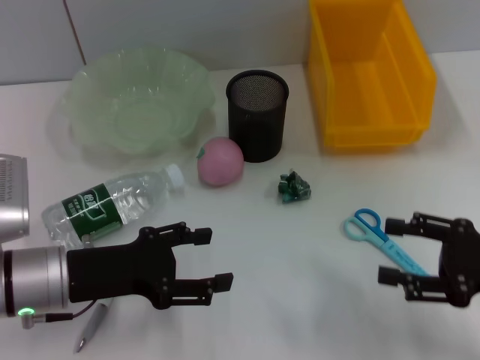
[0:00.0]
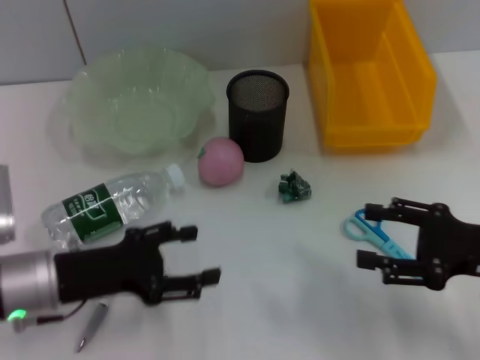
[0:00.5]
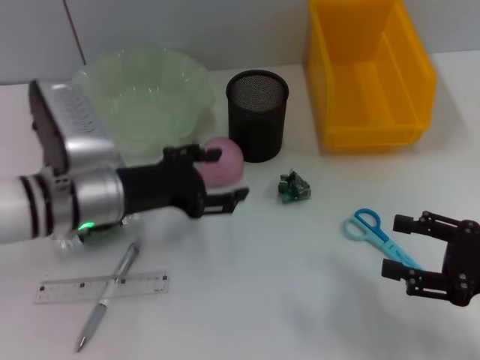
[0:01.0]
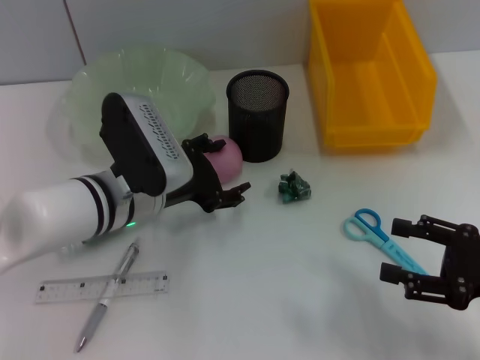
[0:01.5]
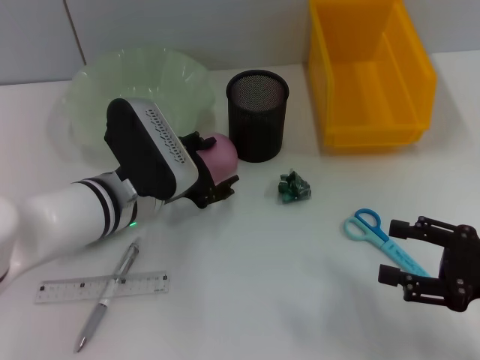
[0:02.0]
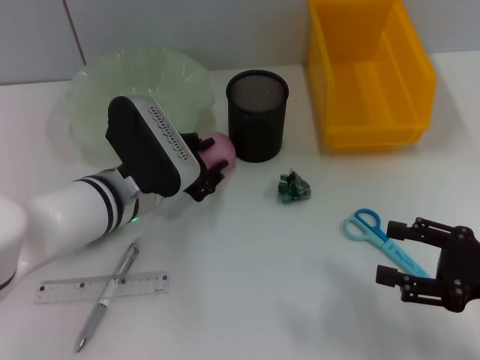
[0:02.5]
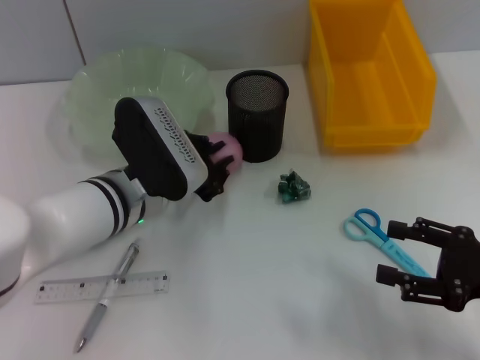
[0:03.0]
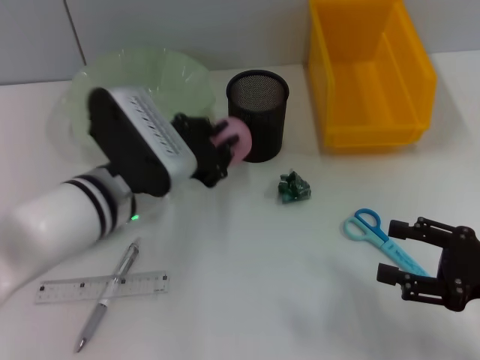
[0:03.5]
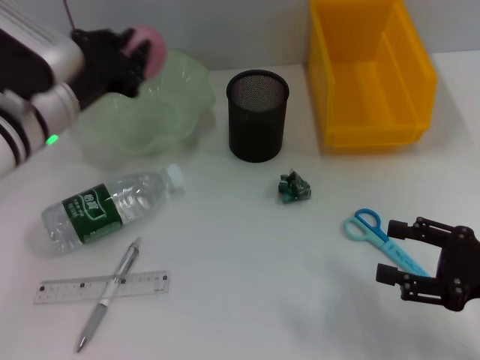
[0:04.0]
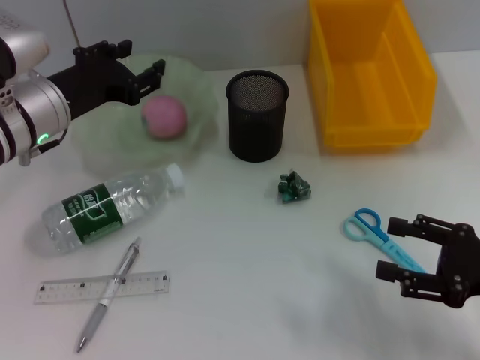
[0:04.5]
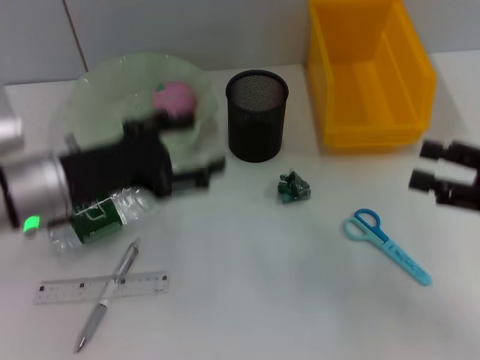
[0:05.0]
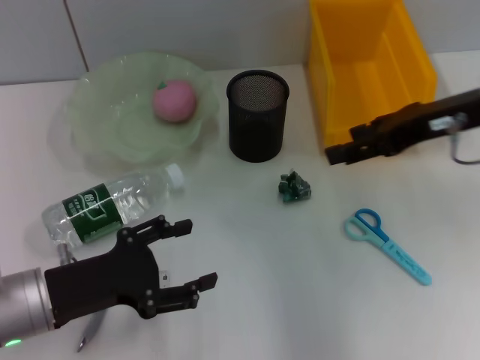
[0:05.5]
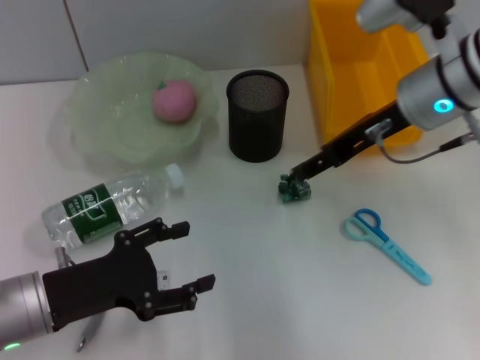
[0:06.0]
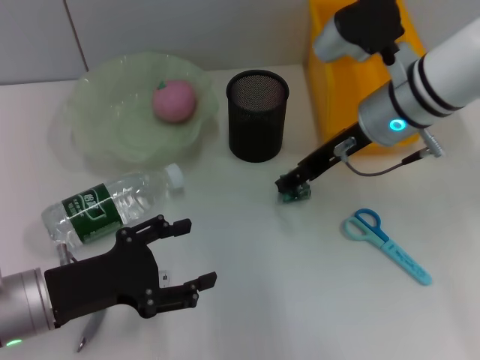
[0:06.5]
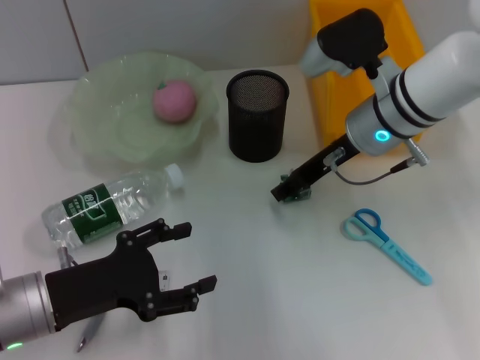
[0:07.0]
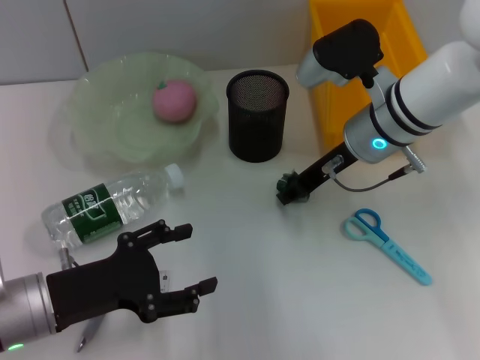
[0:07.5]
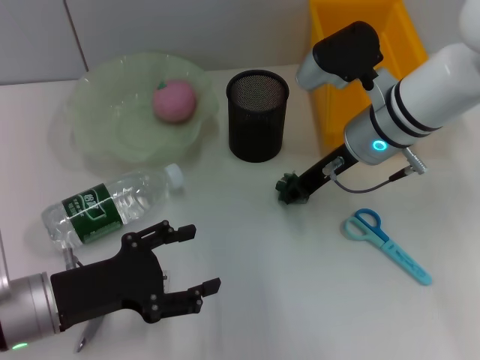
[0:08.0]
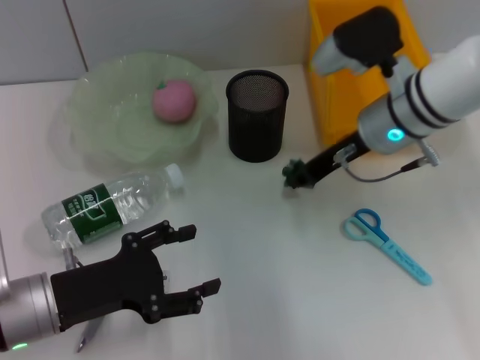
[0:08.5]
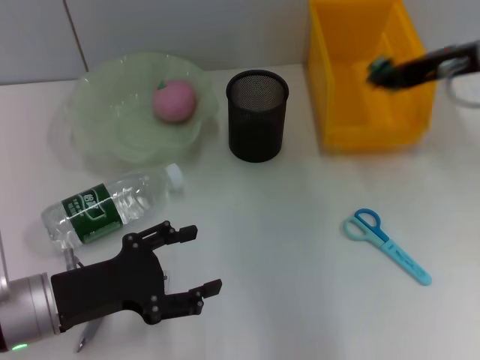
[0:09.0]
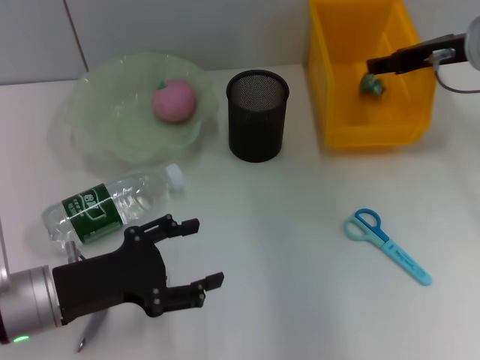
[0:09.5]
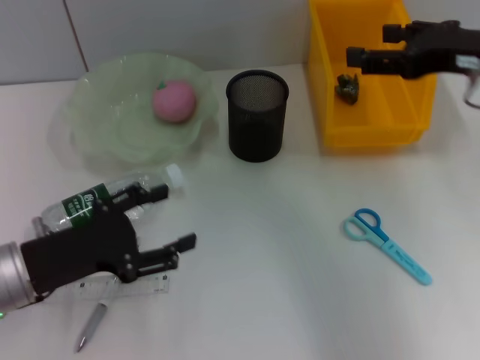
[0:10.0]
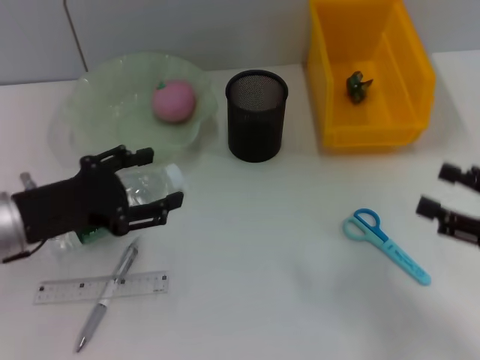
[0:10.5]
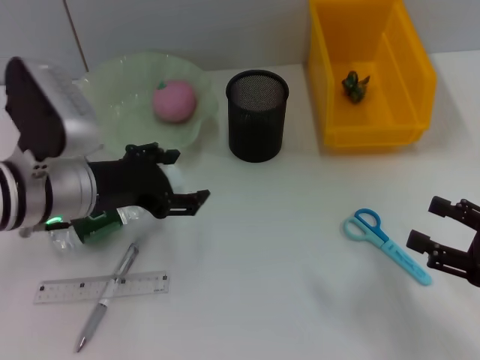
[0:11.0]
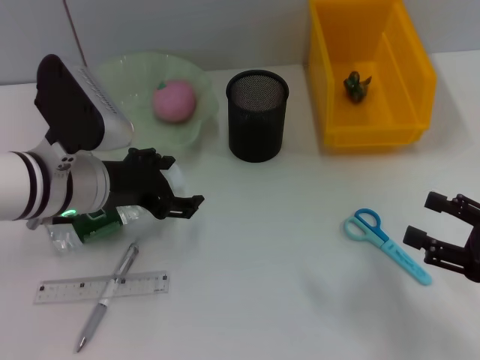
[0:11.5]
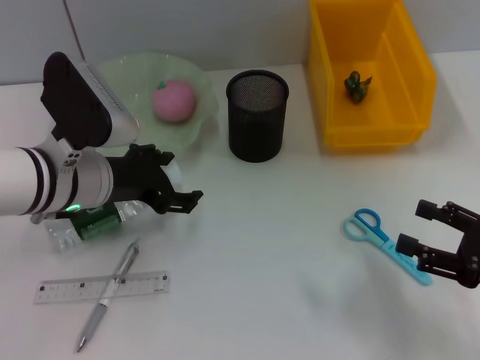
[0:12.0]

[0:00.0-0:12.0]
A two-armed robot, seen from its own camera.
Step, 0:00.0 to 0:02.5: Grab the peach with the left hand.
Step, 0:03.0 to 0:05.0: Place the peach into the fruit bowl with the left hand.
Step, 0:05.5 to 0:08.0: Grab the plastic with the right hand.
Step, 0:08.5 to 0:10.0: Place the plastic into the trash can with the right hand.
0:00.0 to 0:02.0: The left gripper is displaced to the right and forward by roughly 10 cm.
0:02.0 to 0:04.0: The left gripper heads upward and to the left, covering some 10 cm, and closes up.
0:04.0 to 0:06.0: The left gripper moves backward, downward and to the left, roughly 15 cm, and opens. The right gripper moves forward, to the left and upward, roughly 25 cm.
0:06.0 to 0:08.0: The right gripper shifts about 5 cm downward, and closes up.
0:08.0 to 0:10.0: The right gripper is displaced to the right, upward and backward by roughly 15 cm, and opens.
0:10.0 to 0:12.0: The left gripper travels forward and to the right by some 10 cm; the right gripper is displaced downward and backward by approximately 20 cm.

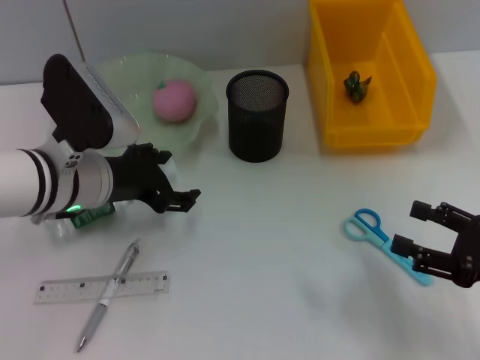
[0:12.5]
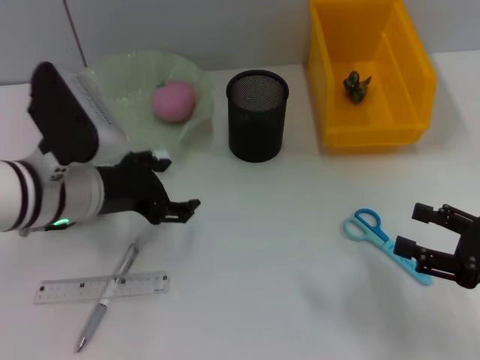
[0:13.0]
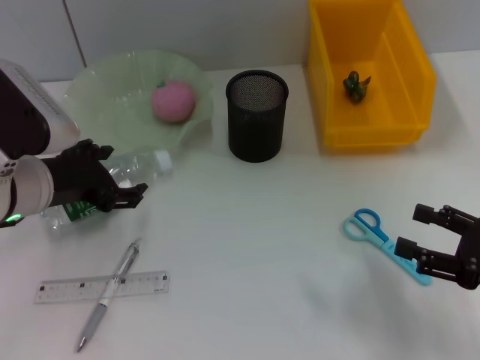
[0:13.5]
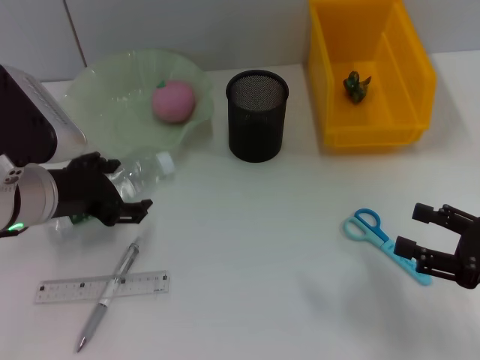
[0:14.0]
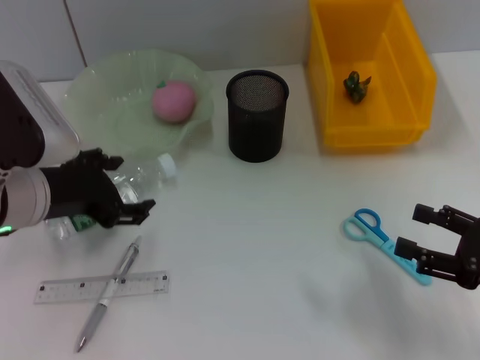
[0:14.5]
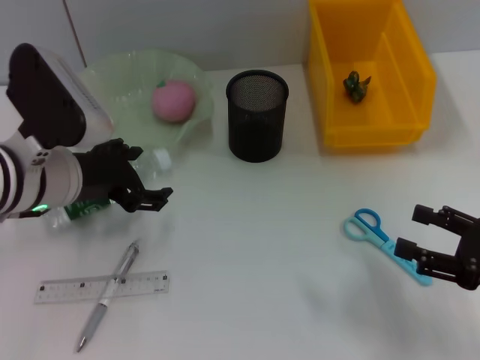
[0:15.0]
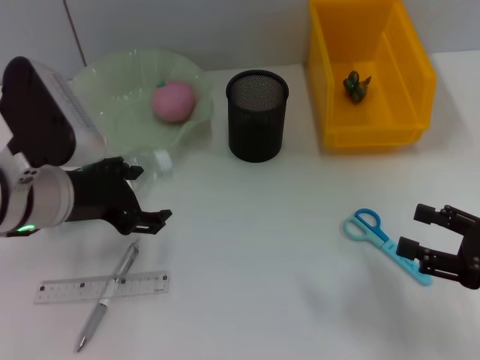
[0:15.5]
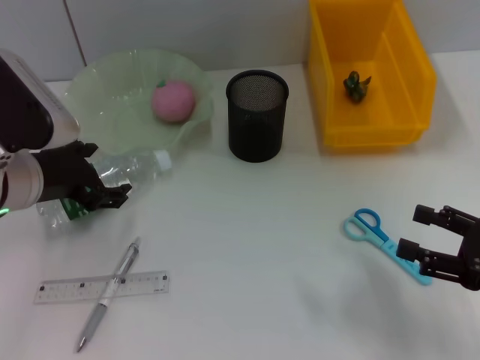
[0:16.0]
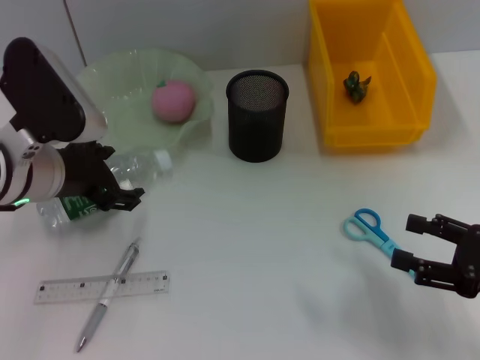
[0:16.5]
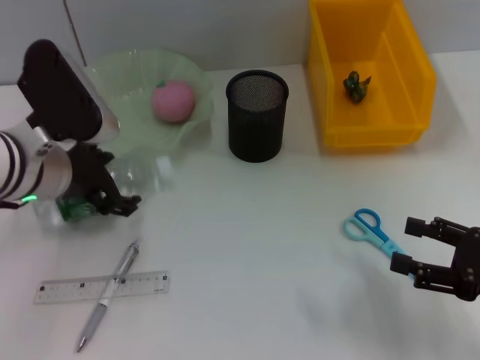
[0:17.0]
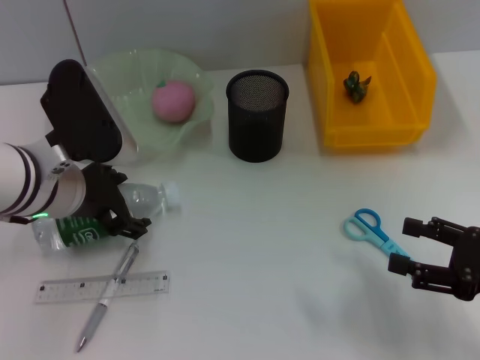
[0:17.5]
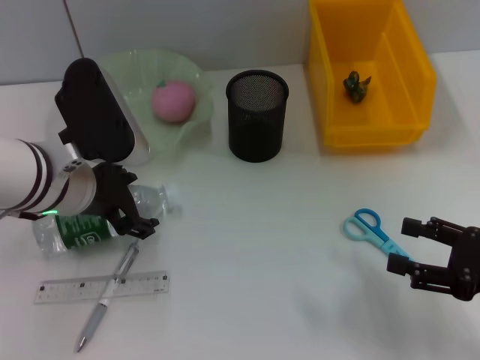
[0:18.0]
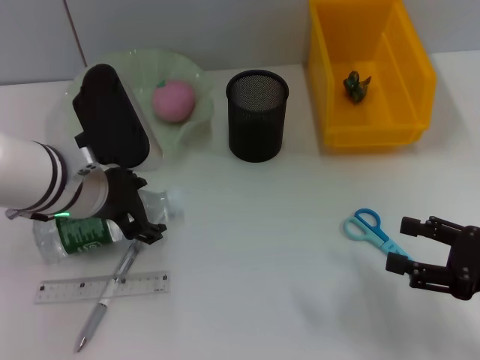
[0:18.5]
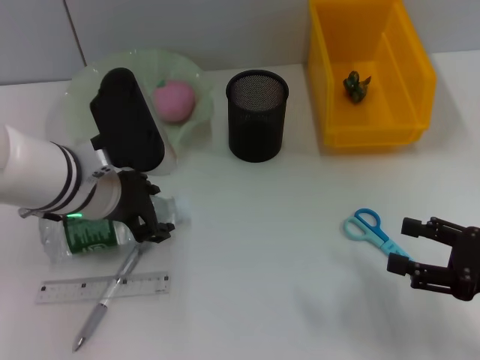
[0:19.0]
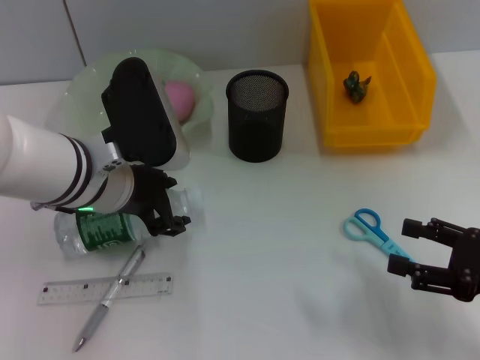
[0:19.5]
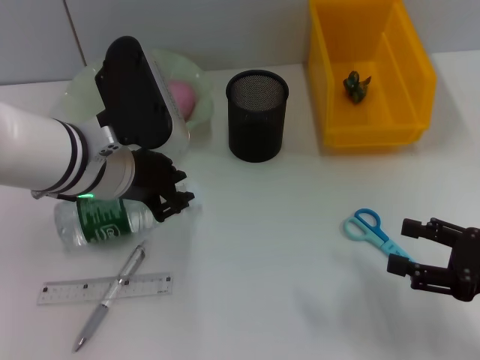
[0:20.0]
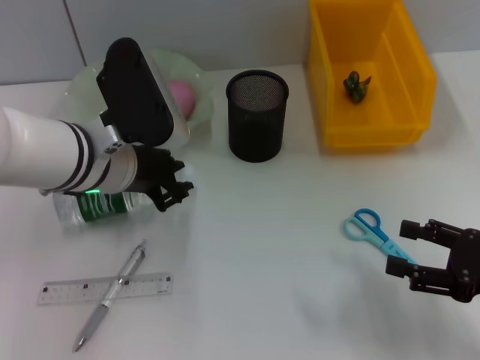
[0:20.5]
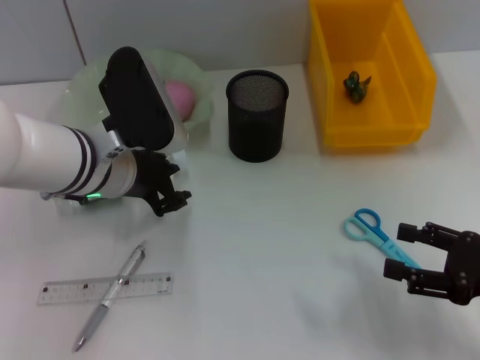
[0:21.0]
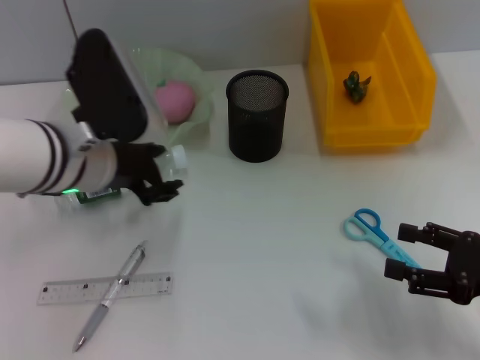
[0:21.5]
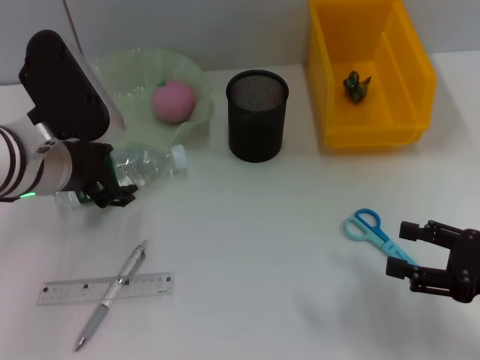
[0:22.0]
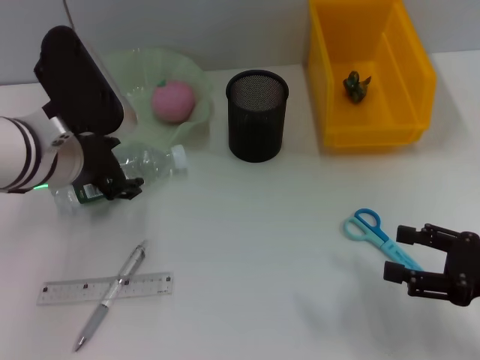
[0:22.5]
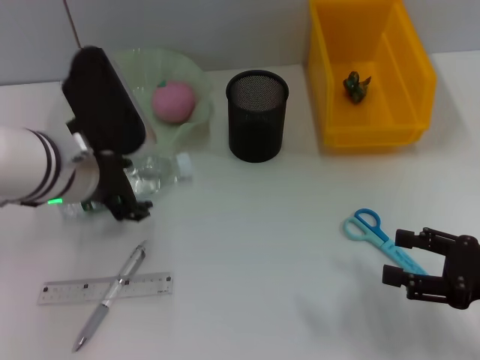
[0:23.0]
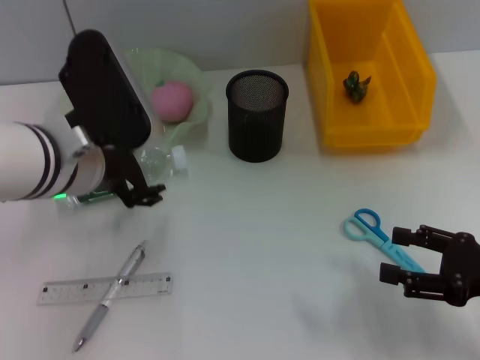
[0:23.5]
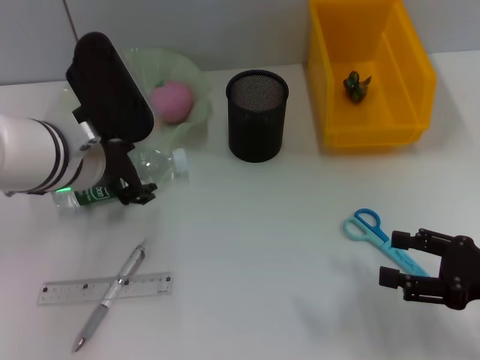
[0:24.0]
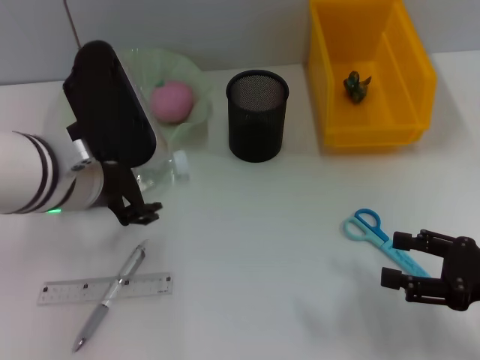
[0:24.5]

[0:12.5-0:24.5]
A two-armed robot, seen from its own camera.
0:12.5 to 0:14.5: The left gripper changes place by roughly 5 cm.
0:14.5 to 0:16.5: The grippers make only small movements.
0:16.5 to 0:18.5: The grippers stay close to where they were, moving slightly.
0:18.5 to 0:20.5: The left gripper closes its fingers.
0:20.5 to 0:22.5: The left gripper opens up.
0:22.5 to 0:24.5: The grippers make only small movements.

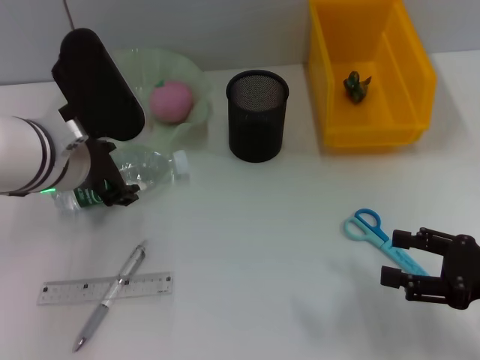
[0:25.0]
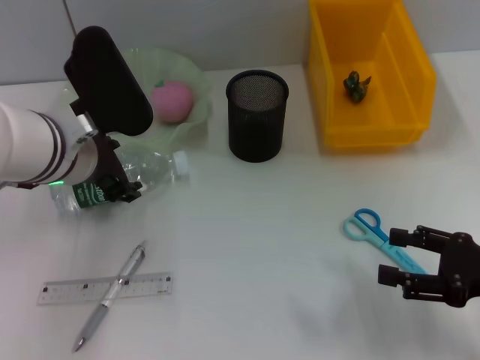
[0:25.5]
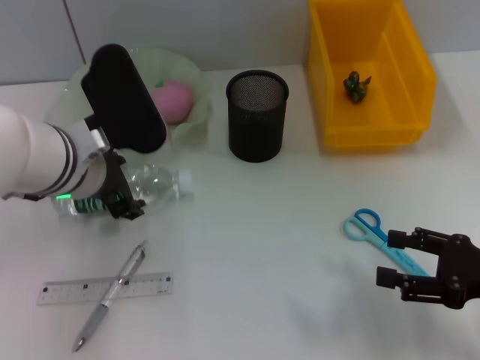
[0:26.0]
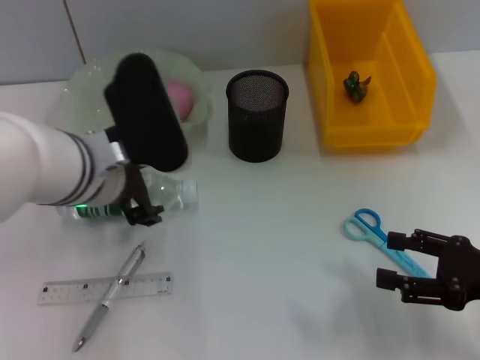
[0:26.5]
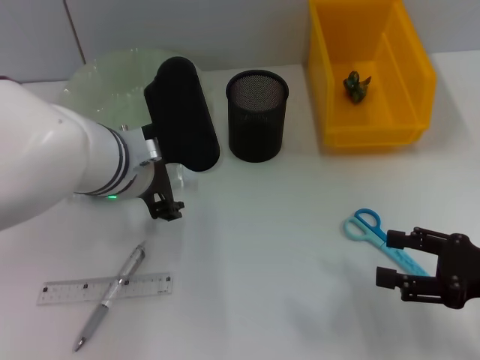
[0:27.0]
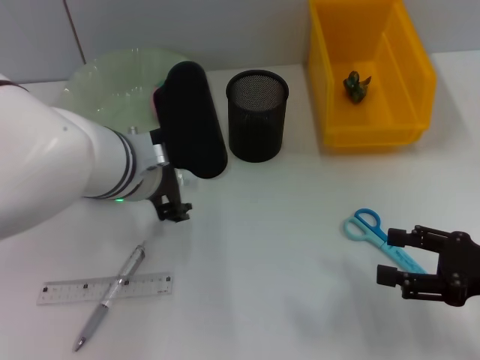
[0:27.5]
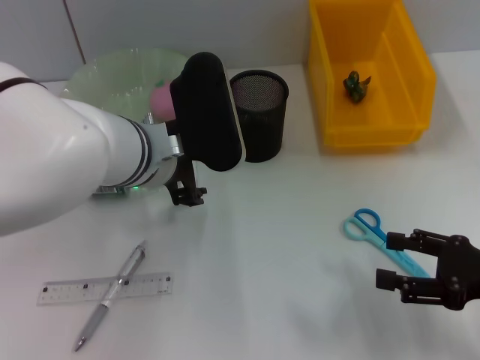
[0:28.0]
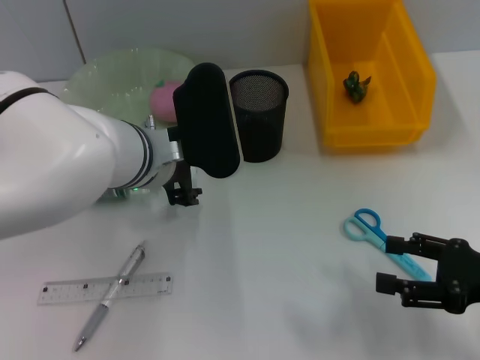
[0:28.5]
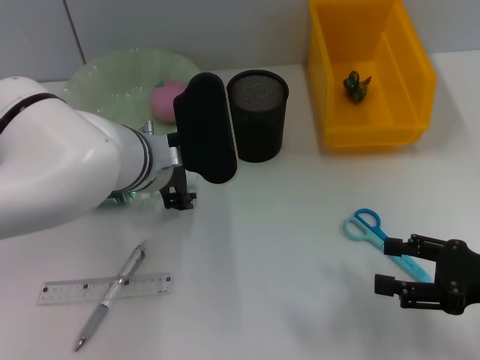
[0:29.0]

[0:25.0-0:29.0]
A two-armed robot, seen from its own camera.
0:25.0 to 0:27.0: The left gripper is displaced to the right by approximately 5 cm.
0:27.0 to 0:29.0: The grippers move only a little.
